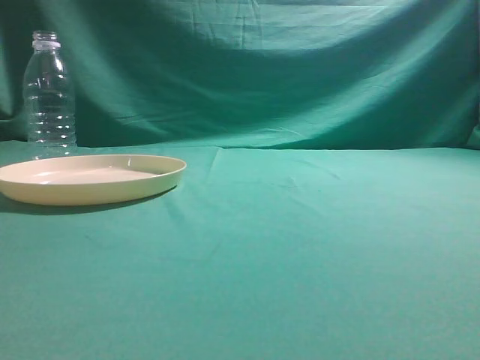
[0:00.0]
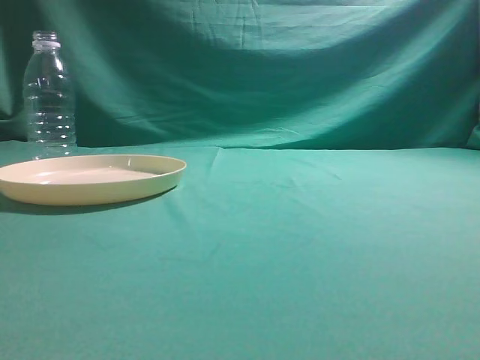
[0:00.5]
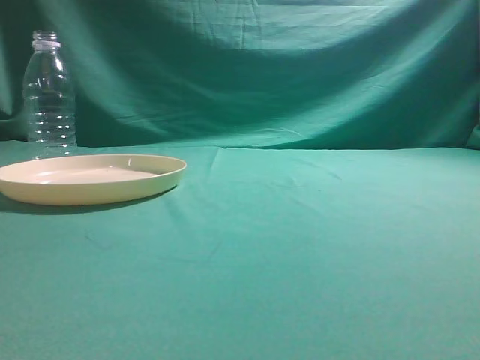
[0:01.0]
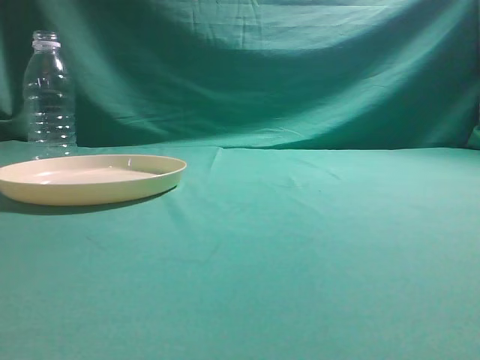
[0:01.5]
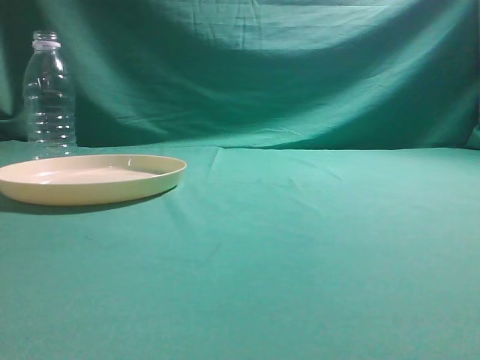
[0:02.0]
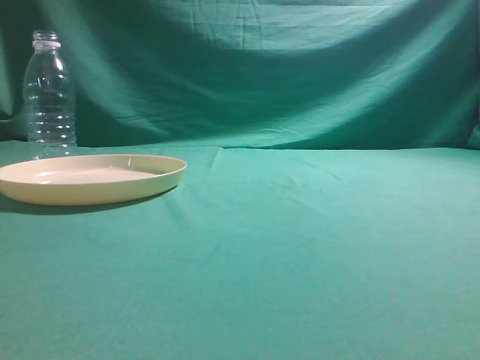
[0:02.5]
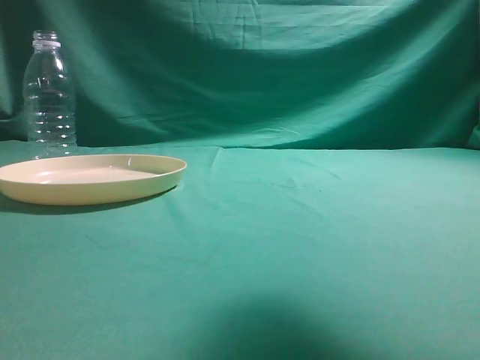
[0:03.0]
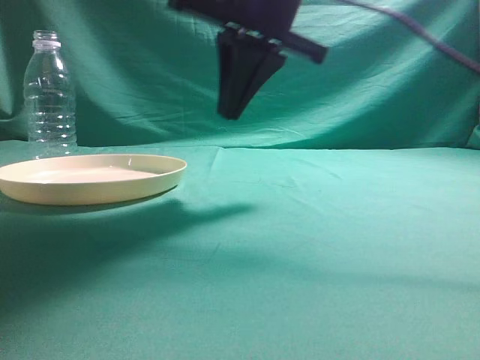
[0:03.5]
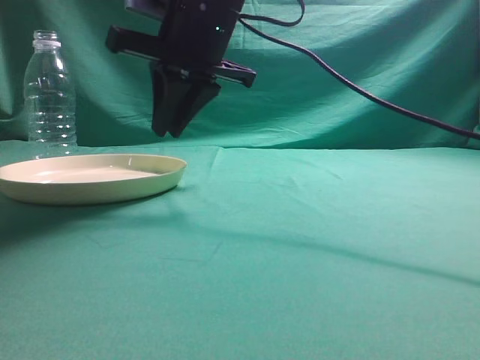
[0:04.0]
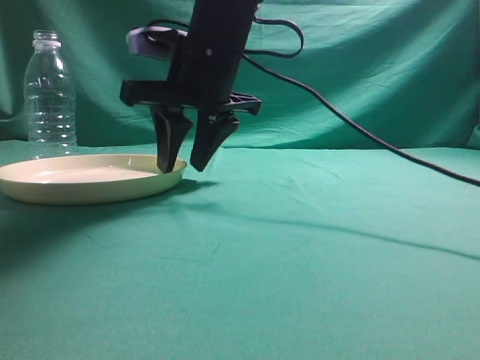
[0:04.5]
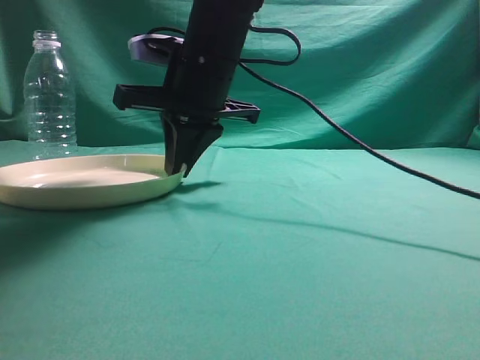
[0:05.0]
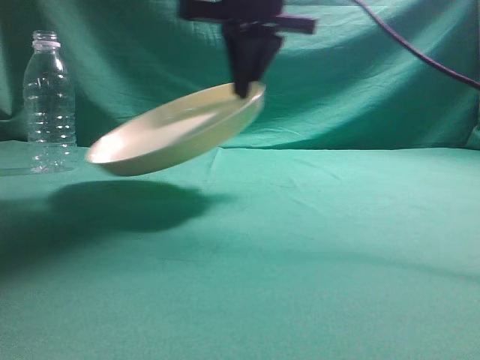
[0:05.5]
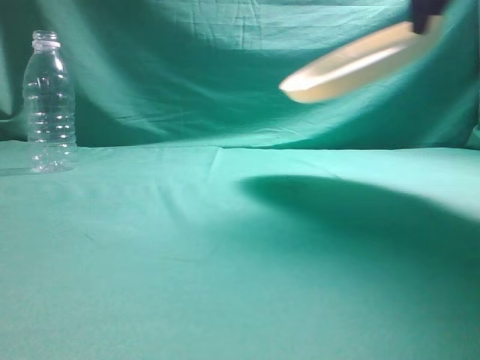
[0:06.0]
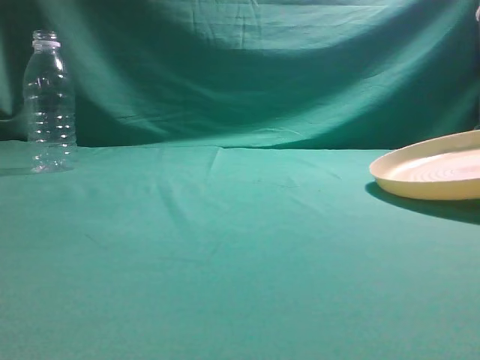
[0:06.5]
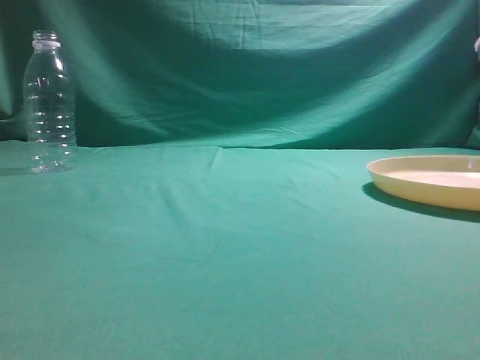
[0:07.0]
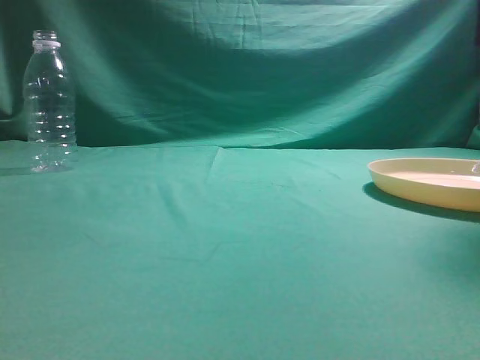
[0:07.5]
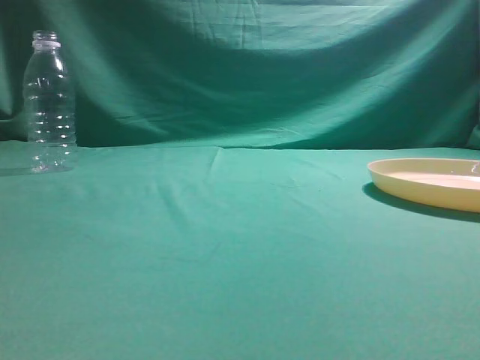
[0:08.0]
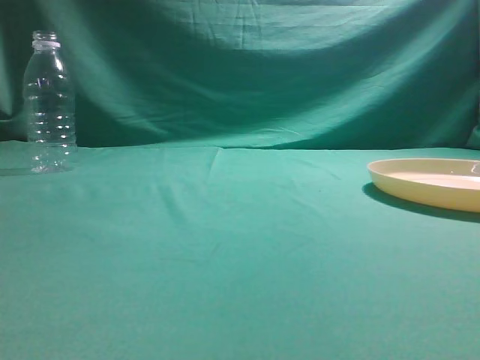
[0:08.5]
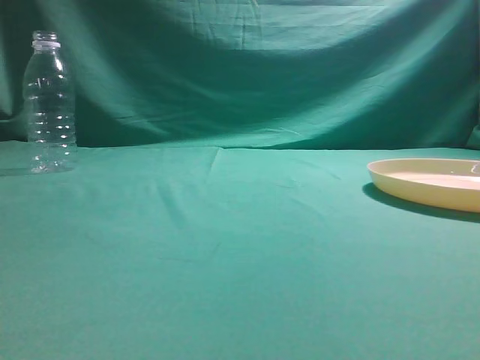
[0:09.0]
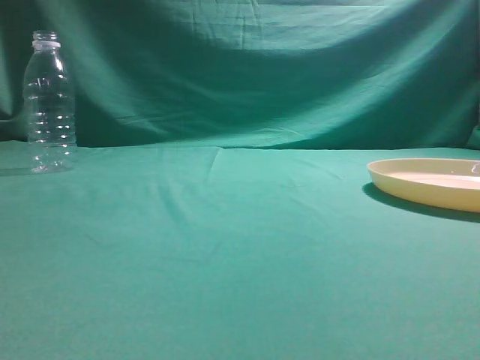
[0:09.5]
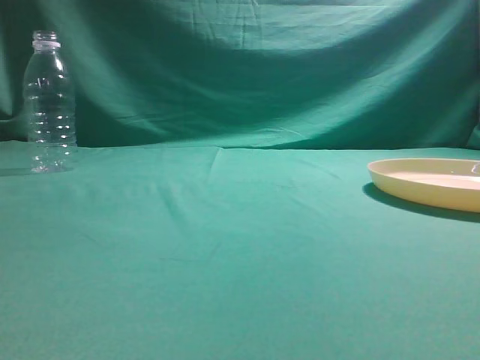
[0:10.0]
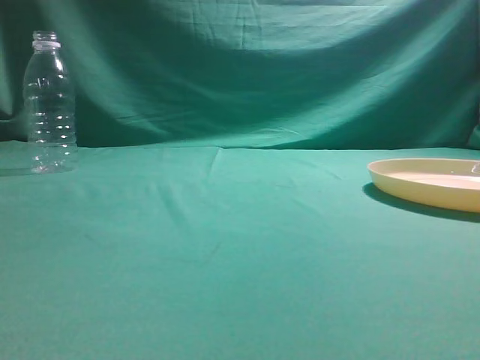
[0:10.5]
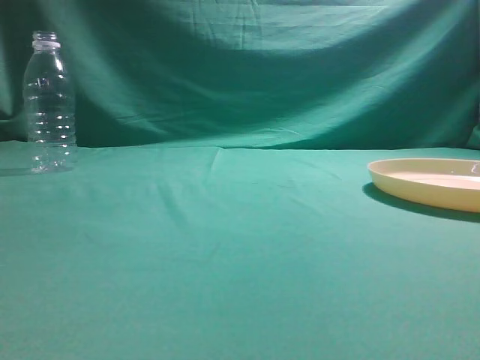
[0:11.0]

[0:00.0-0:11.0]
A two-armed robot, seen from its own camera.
Step, 0:00.0 to 0:05.0: Pick the container that can hold fruits.
Step, 0:05.5 to 0:07.0: Move the picked object to the right side of the table.
0:02.0 to 0:03.5: The right gripper is displaced forward and to the left by roughly 35 cm.
0:03.5 to 0:05.5: The right gripper moves forward and to the left, roughly 5 cm, and opens, then closes once more.
0:05.5 to 0:07.5: The right gripper travels to the right by roughly 30 cm, and opens up.
0:07.5 to 0:09.0: The right gripper shifts some 35 cm backward, and closes its fingers.
